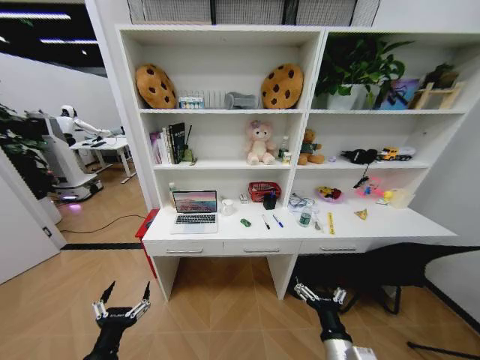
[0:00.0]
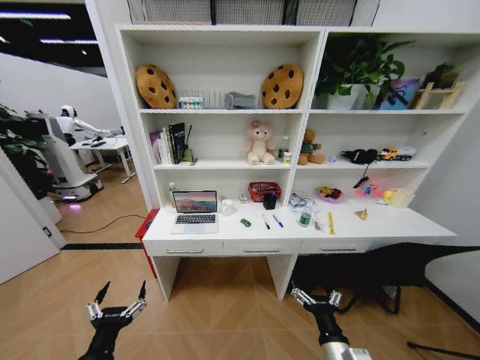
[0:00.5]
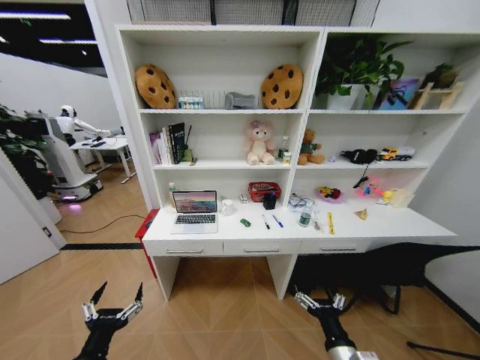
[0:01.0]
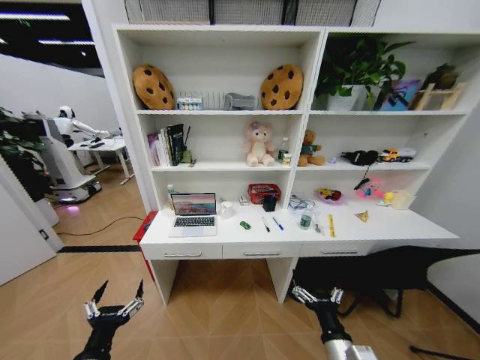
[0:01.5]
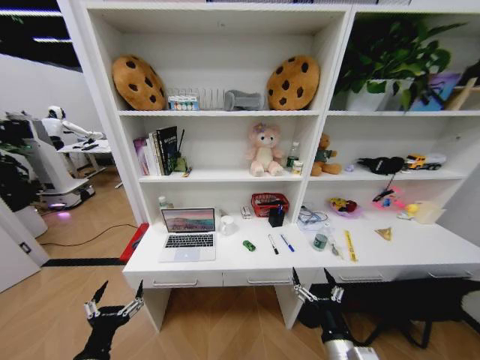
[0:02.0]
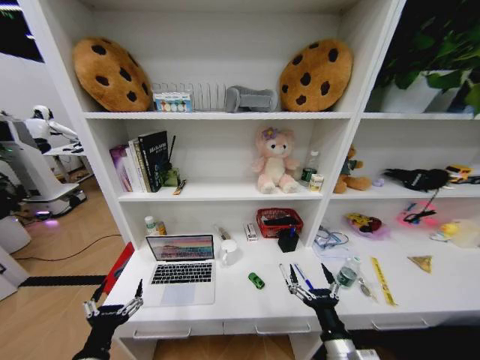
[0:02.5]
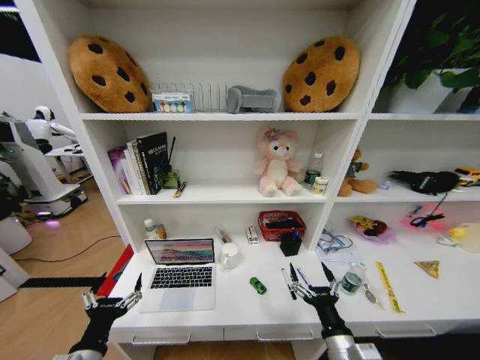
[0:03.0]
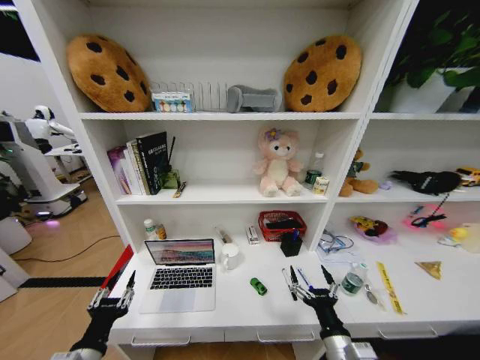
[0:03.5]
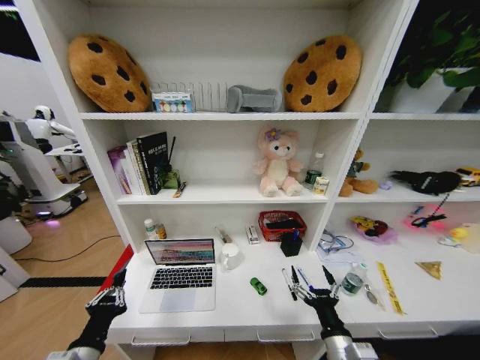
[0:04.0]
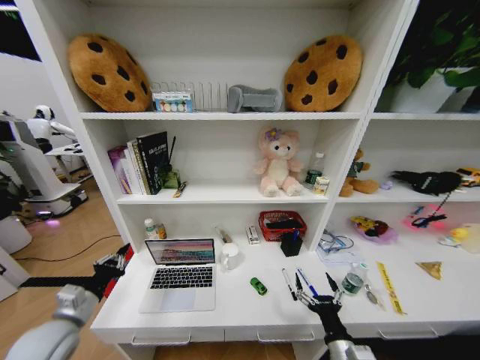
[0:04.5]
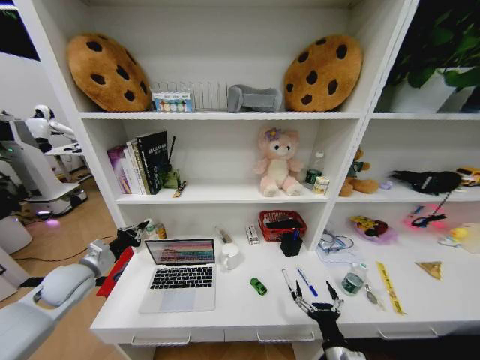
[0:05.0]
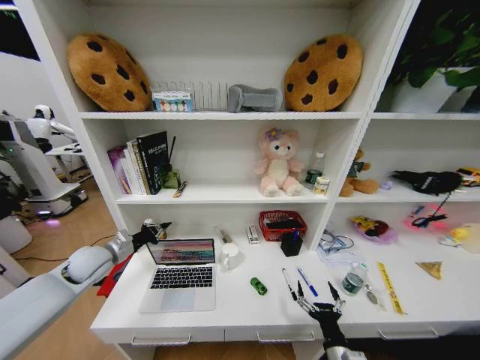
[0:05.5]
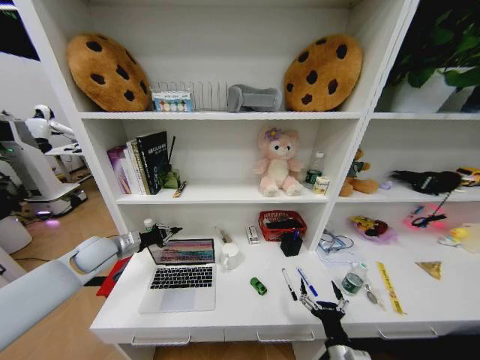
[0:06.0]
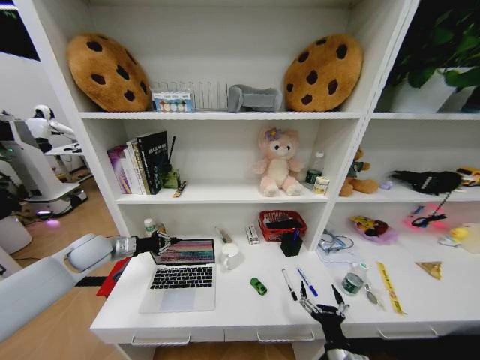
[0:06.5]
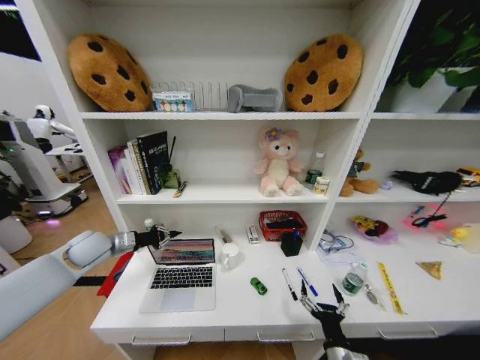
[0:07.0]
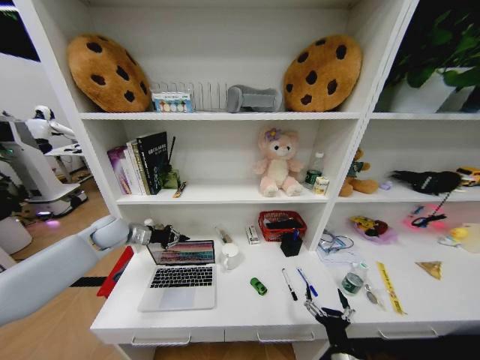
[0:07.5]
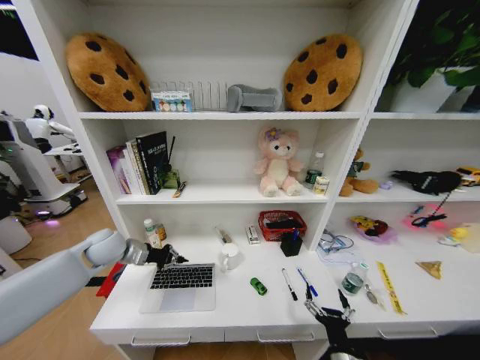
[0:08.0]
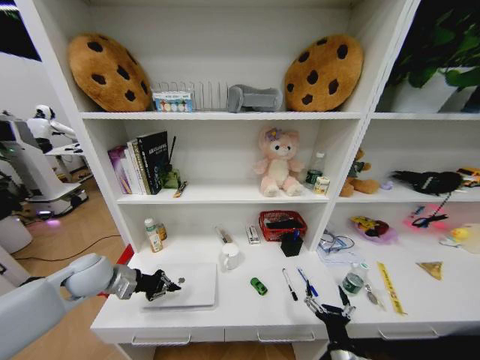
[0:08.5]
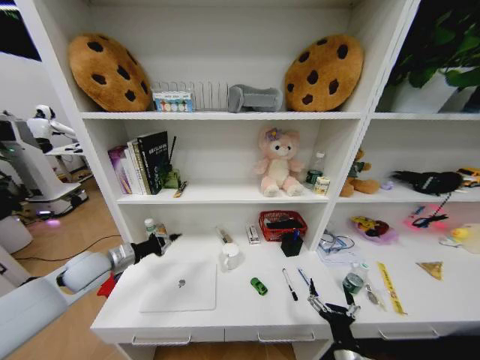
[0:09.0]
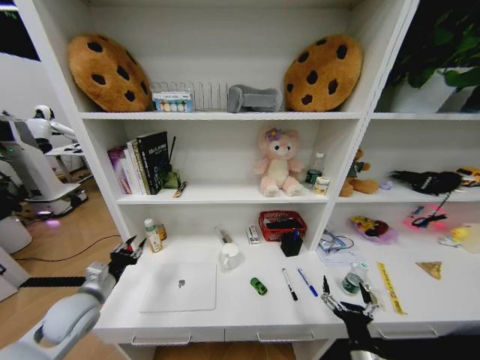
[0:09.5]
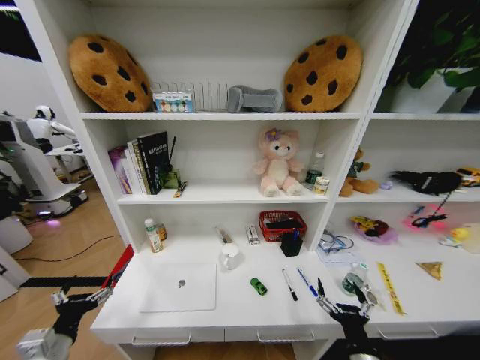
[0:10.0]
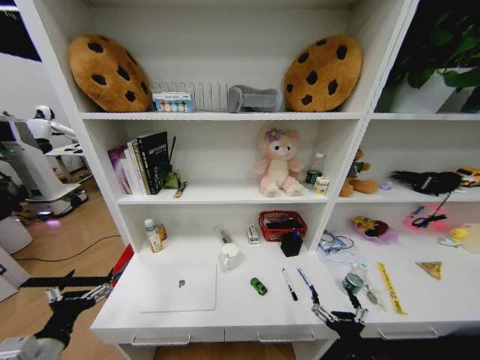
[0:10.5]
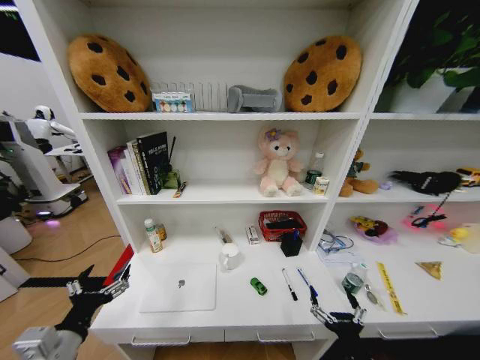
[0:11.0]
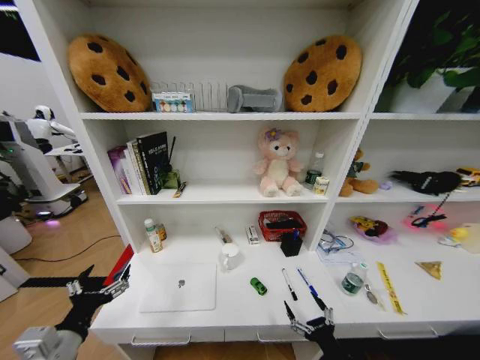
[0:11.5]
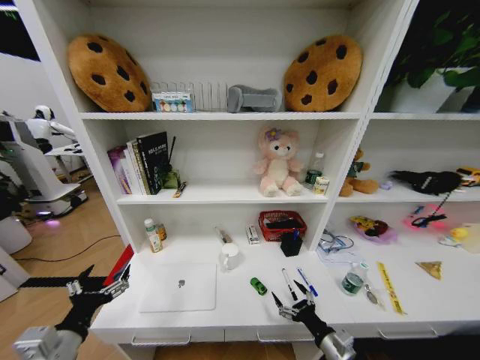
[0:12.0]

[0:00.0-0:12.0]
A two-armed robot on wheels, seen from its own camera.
Task of the whole recording: Organize the objects on the table.
0:02.0 to 0:04.0: The left gripper closes.
0:04.0 to 0:06.0: The right gripper is displaced downward by about 5 cm, while the left gripper moves forward, approximately 30 cm.
0:08.0 to 0:10.0: The right gripper travels upward by about 5 cm. The left gripper moves backward, roughly 30 cm, and opens up.
0:10.0 to 0:12.0: The left gripper shifts approximately 10 cm upward and to the right. The right gripper goes about 5 cm forward.

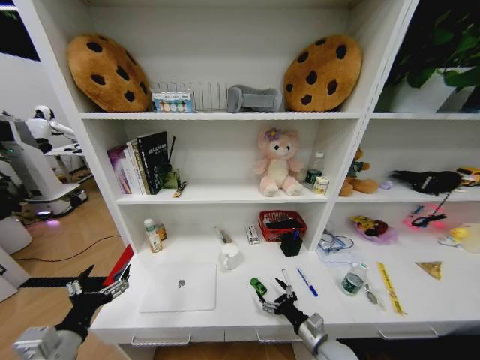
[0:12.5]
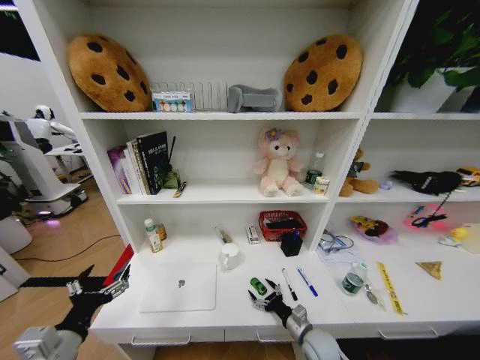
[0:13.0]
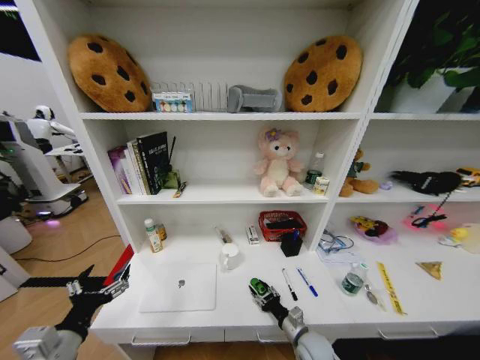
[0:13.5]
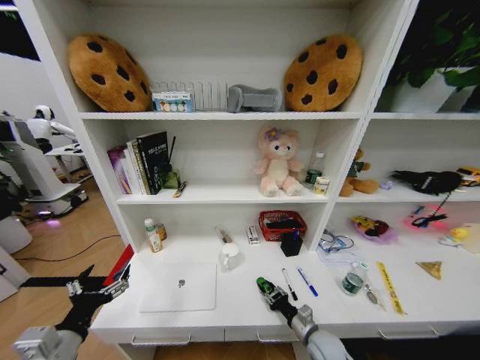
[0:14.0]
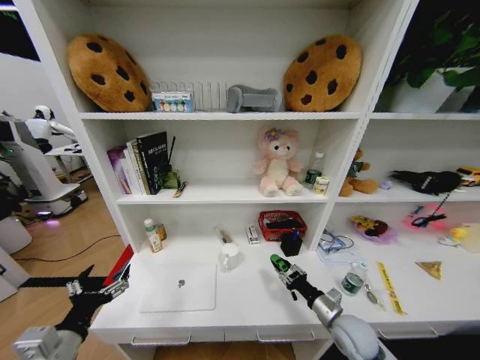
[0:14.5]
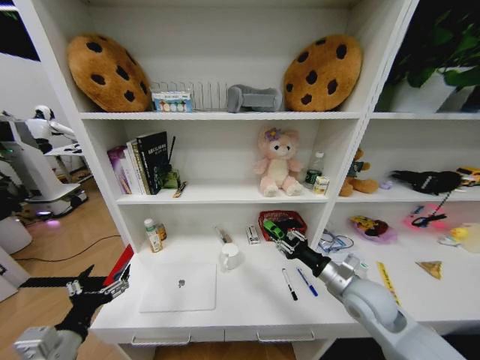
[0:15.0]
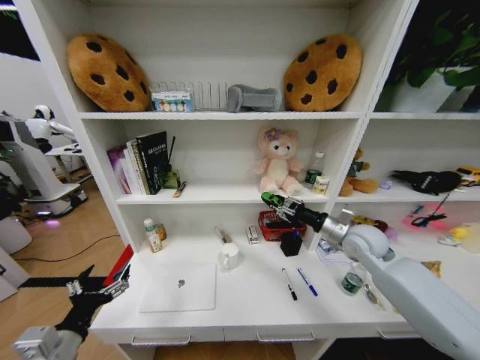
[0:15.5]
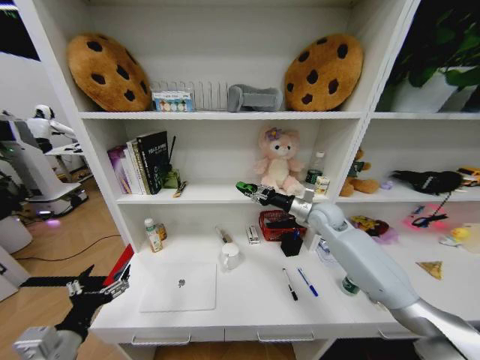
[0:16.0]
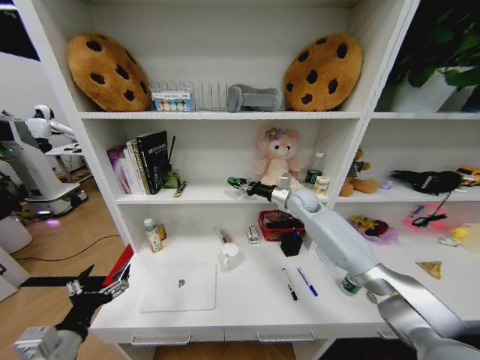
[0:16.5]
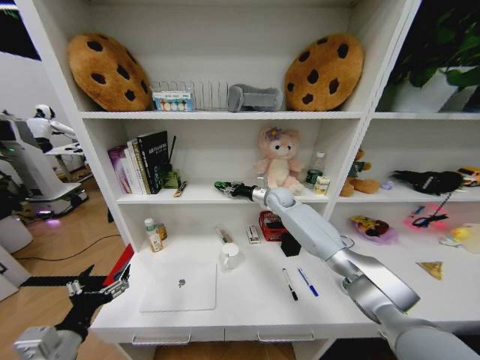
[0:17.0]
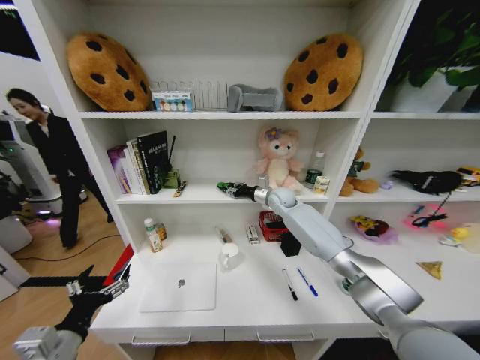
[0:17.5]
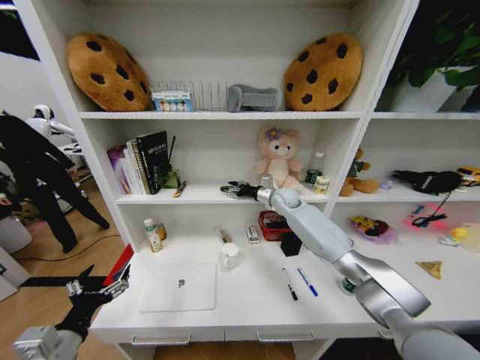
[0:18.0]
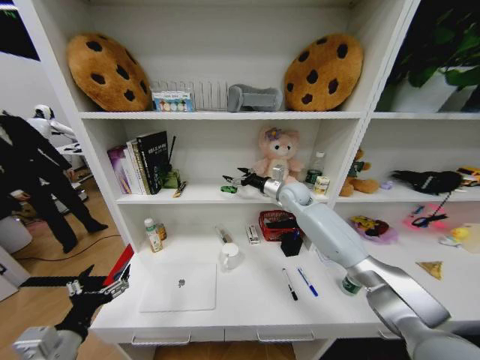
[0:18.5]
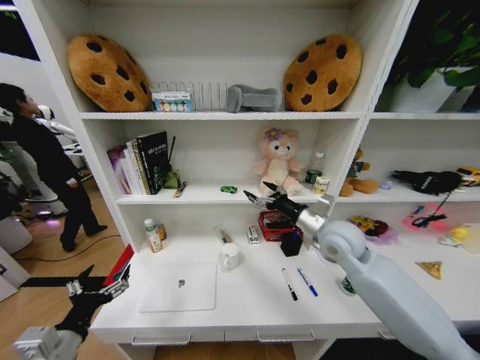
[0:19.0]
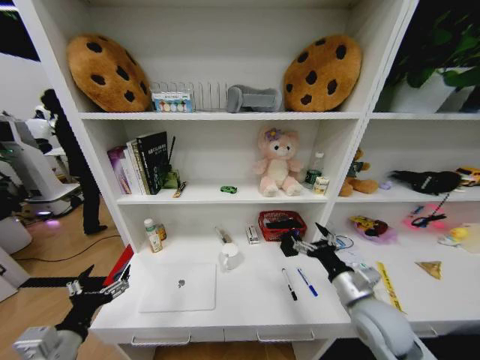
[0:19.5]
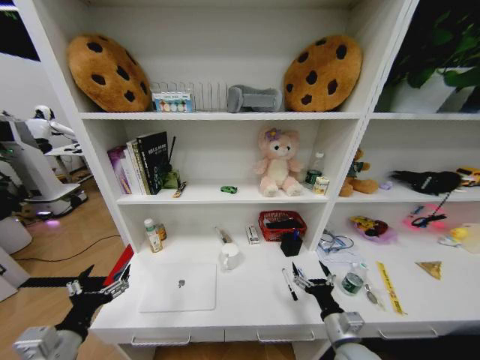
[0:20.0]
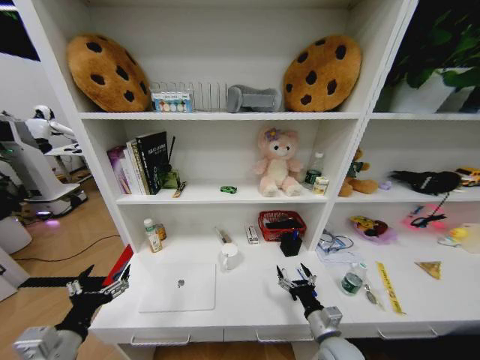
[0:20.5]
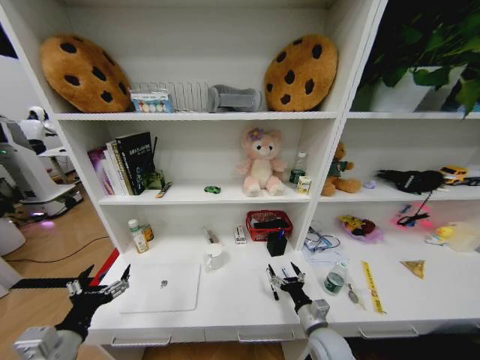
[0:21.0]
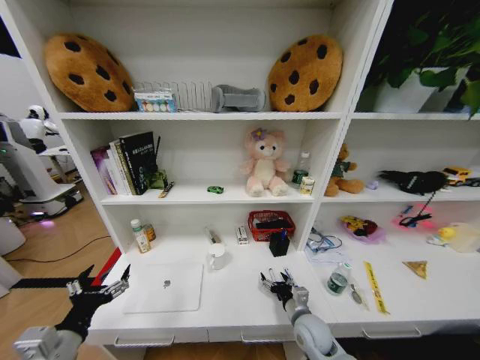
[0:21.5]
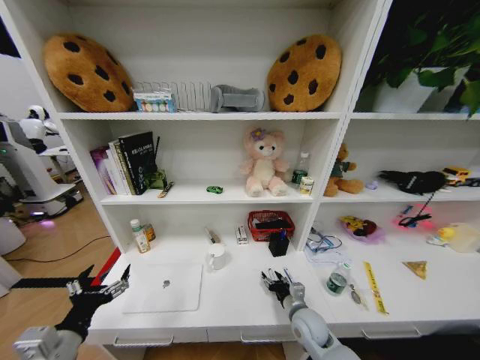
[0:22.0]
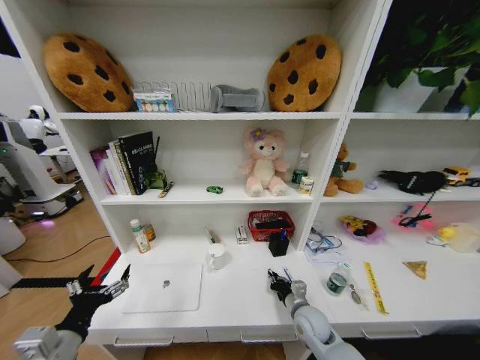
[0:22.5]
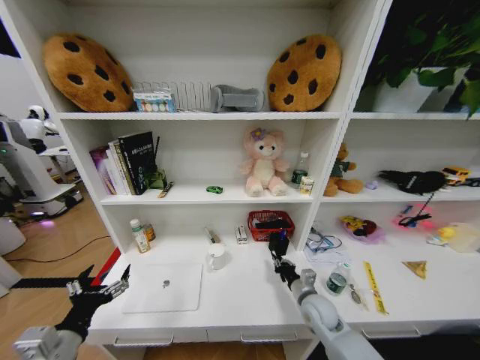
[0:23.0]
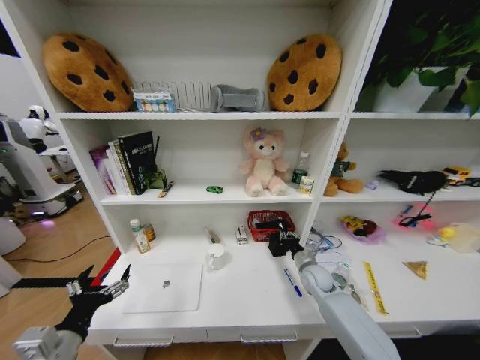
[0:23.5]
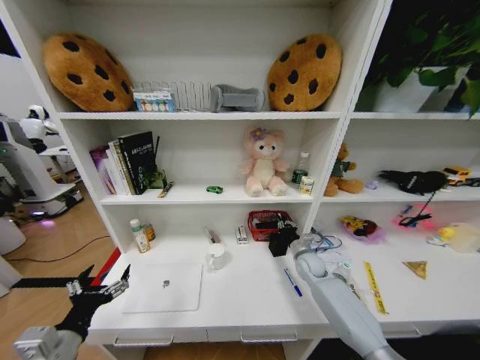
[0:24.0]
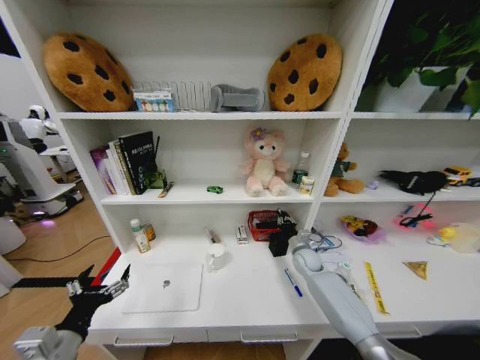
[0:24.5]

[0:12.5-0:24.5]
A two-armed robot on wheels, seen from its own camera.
Task of the whole recording: Organize the objects on the table.
0:12.5 to 0:14.5: The right gripper shifts some 5 cm upward, and closes up.
0:14.5 to 0:16.5: The right gripper heads forward and upward, covering approximately 35 cm.
0:16.5 to 0:18.5: The right gripper opens.
0:18.5 to 0:20.5: The right gripper shifts some 40 cm backward and downward.
0:20.5 to 0:22.5: The right gripper heads forward, covering about 10 cm, and closes.
0:22.5 to 0:24.5: The right gripper travels forward by roughly 20 cm.

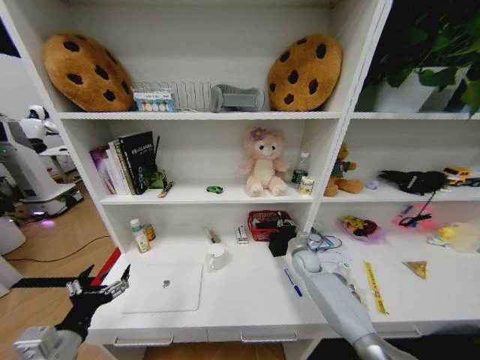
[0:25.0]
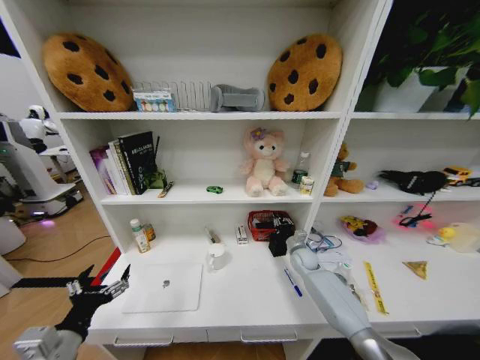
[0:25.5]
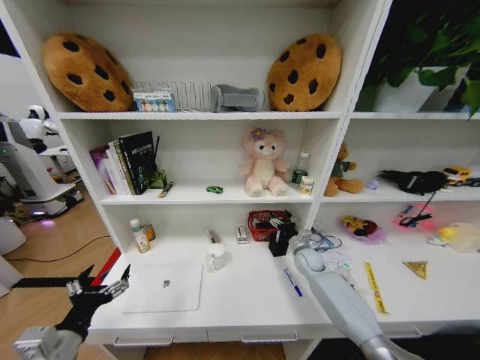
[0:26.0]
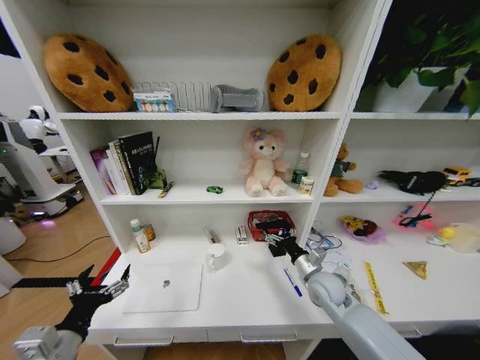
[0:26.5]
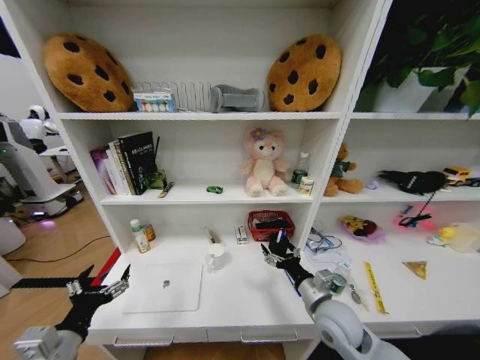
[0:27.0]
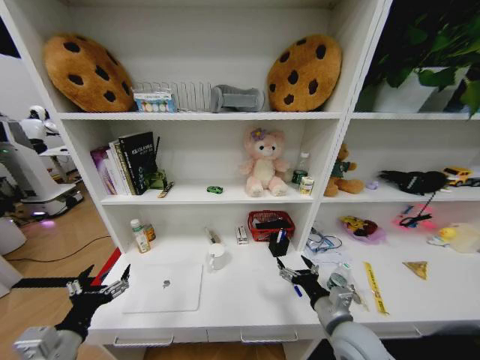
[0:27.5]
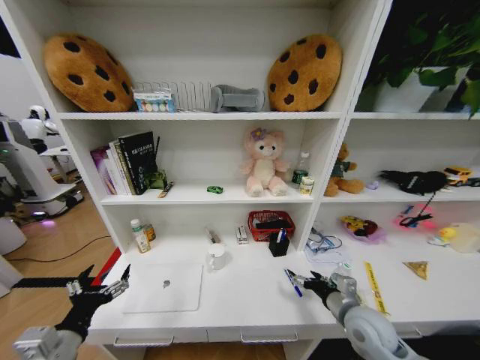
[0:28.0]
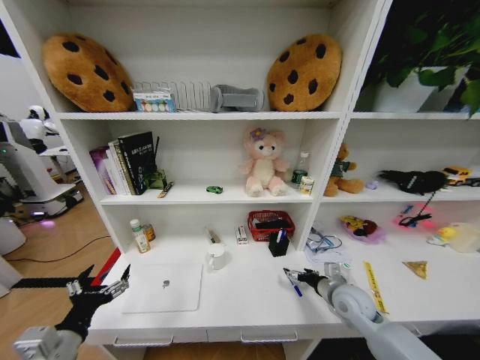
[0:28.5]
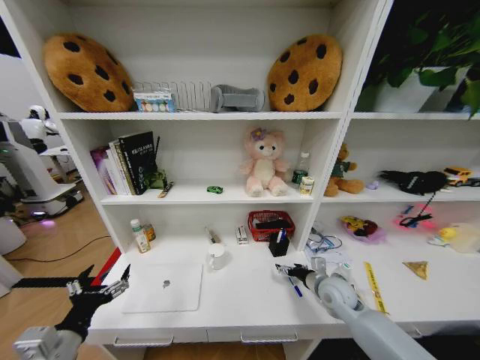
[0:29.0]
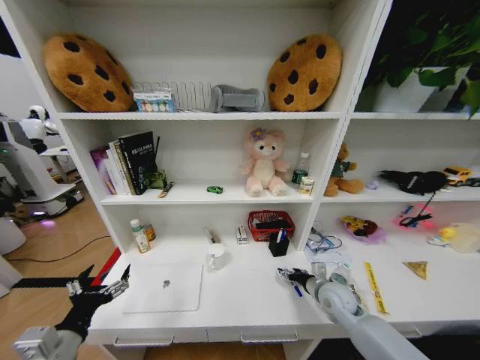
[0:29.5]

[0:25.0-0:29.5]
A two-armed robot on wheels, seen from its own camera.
Task of the whole recording: Organize the objects on the table.
0:25.0 to 0:27.0: The right gripper travels backward and upward by approximately 25 cm, and opens up.
0:27.0 to 0:29.5: The right gripper heads forward, to the right and downward, covering some 10 cm.
